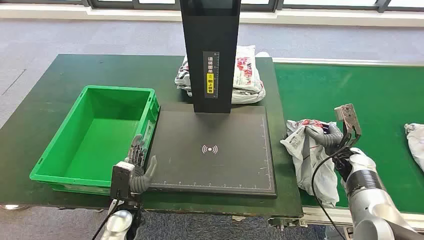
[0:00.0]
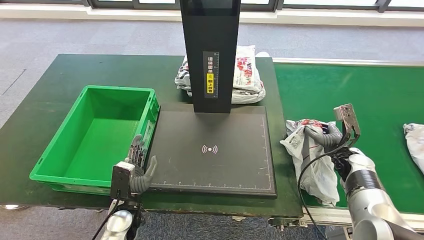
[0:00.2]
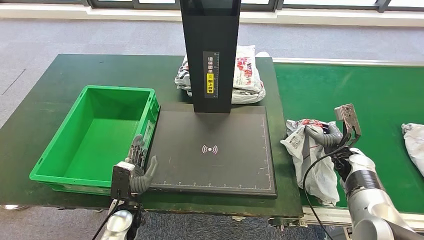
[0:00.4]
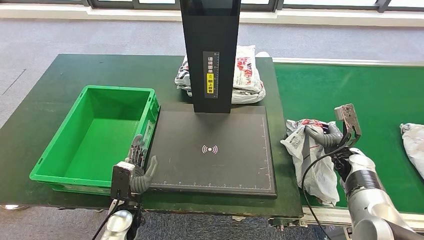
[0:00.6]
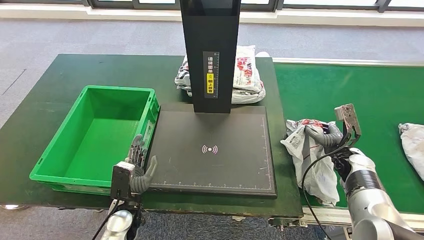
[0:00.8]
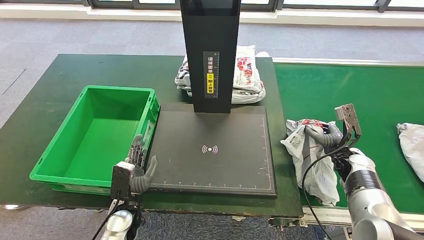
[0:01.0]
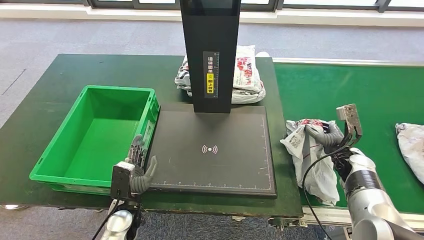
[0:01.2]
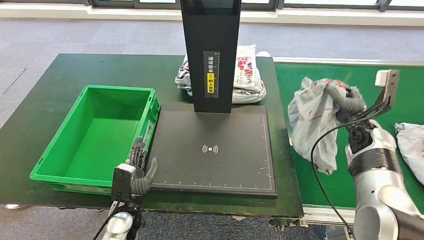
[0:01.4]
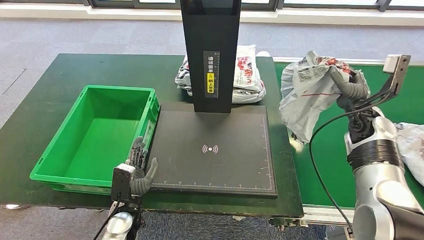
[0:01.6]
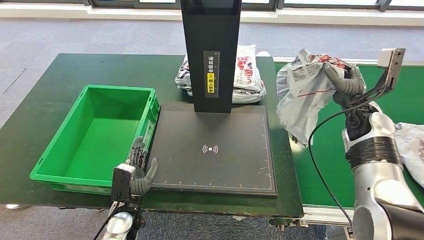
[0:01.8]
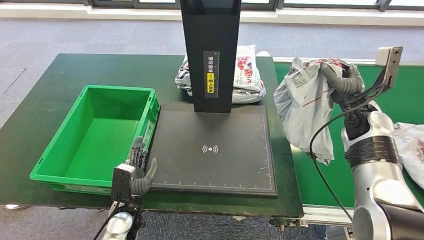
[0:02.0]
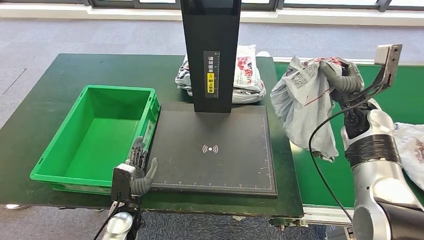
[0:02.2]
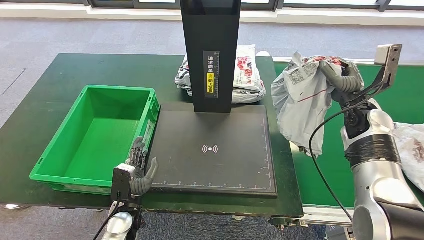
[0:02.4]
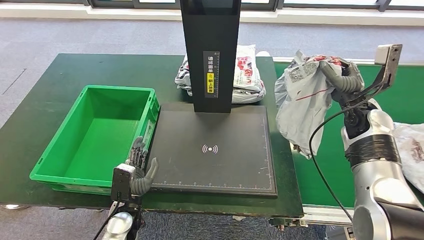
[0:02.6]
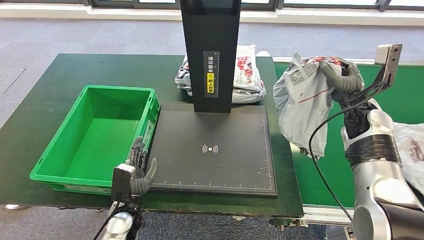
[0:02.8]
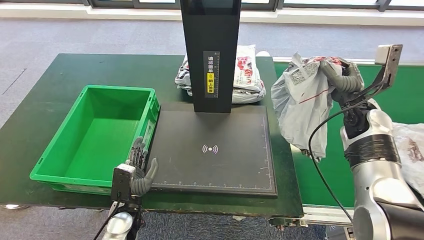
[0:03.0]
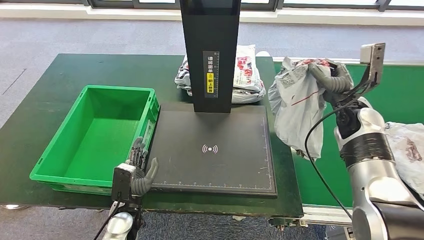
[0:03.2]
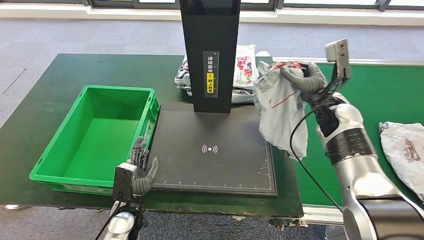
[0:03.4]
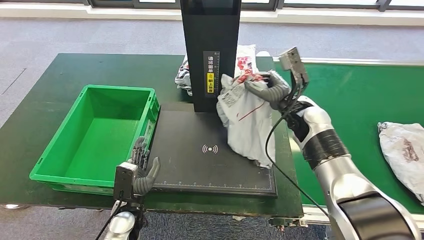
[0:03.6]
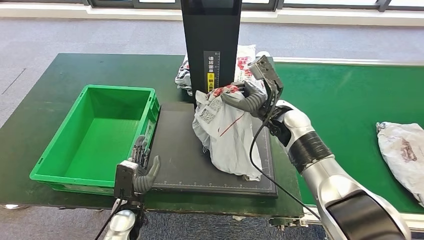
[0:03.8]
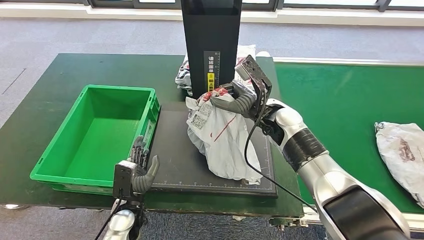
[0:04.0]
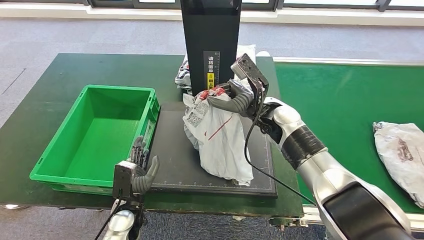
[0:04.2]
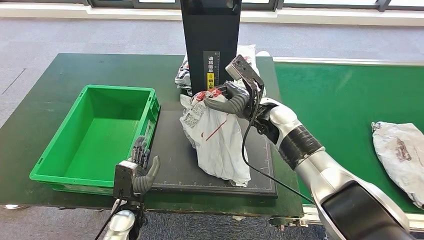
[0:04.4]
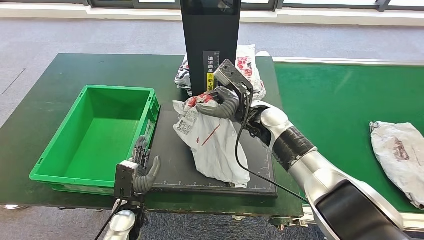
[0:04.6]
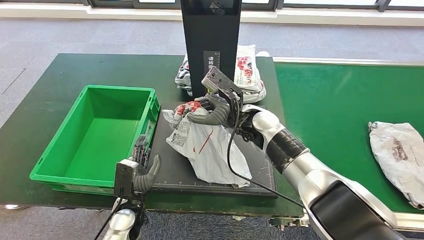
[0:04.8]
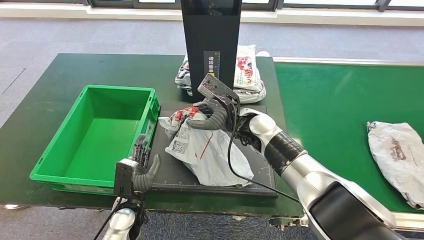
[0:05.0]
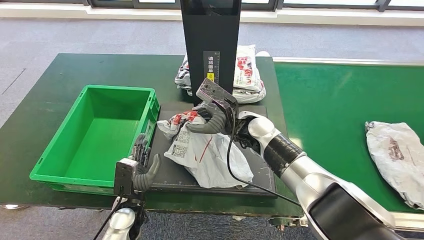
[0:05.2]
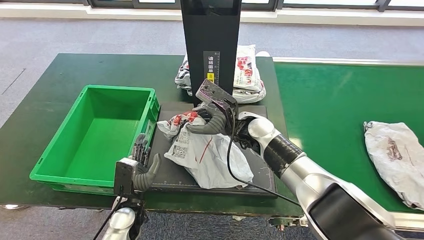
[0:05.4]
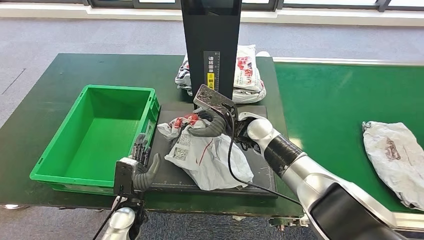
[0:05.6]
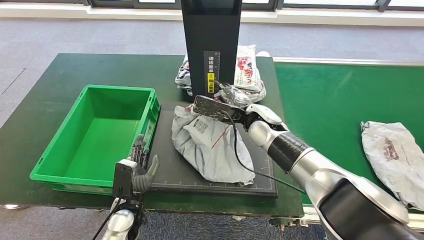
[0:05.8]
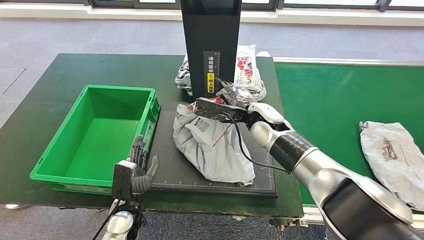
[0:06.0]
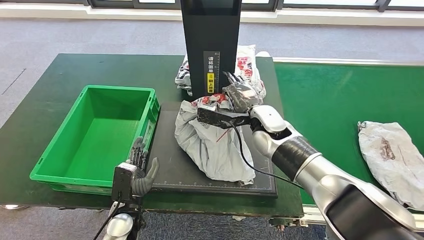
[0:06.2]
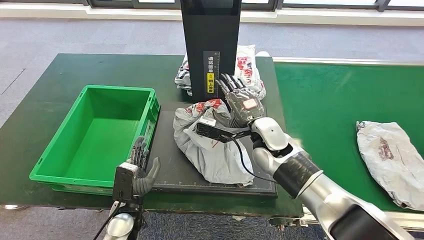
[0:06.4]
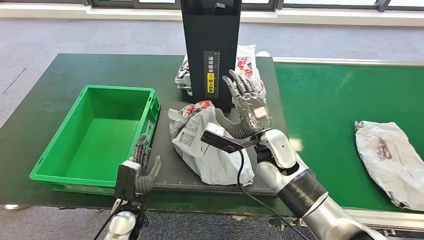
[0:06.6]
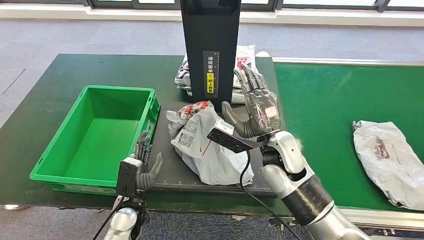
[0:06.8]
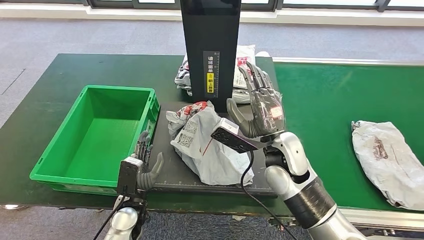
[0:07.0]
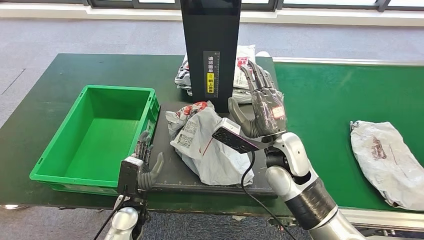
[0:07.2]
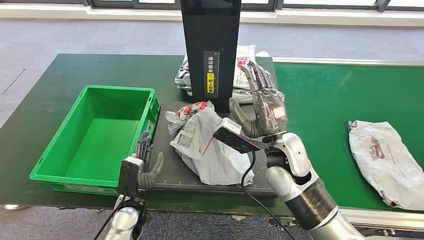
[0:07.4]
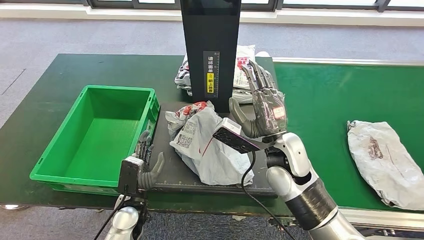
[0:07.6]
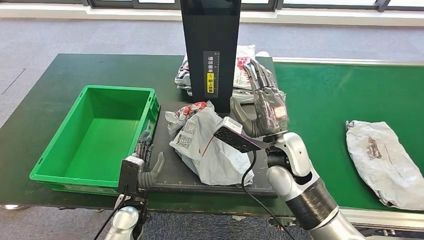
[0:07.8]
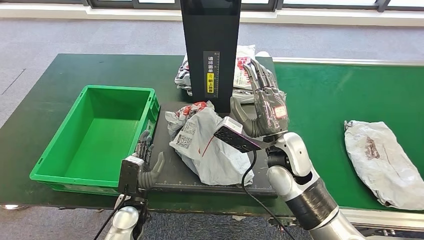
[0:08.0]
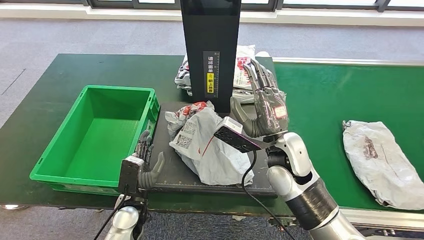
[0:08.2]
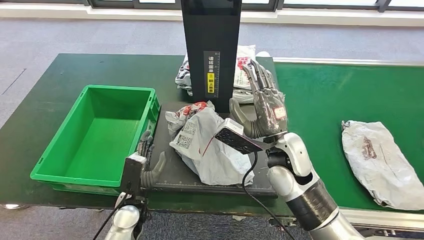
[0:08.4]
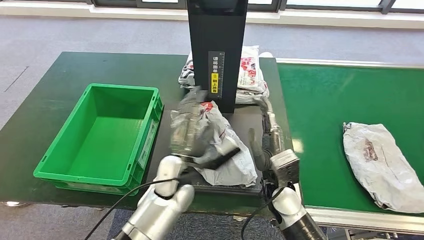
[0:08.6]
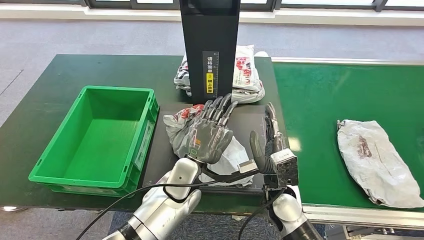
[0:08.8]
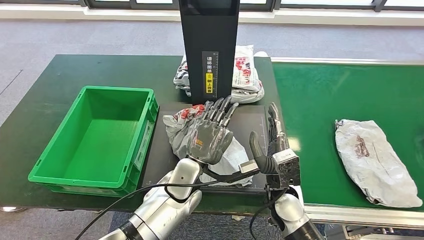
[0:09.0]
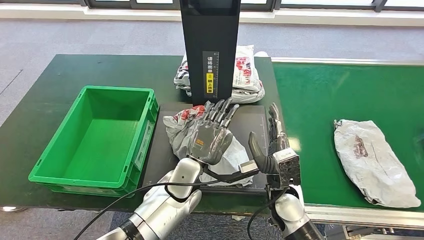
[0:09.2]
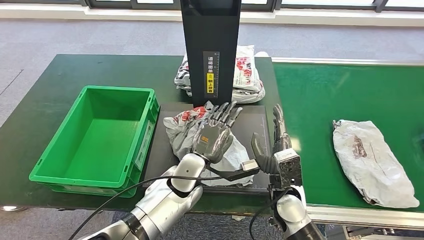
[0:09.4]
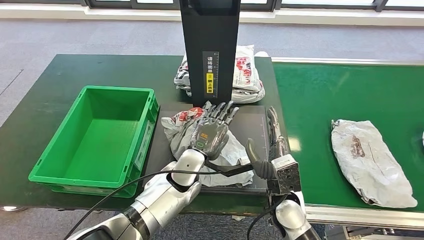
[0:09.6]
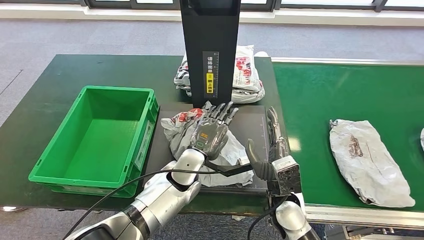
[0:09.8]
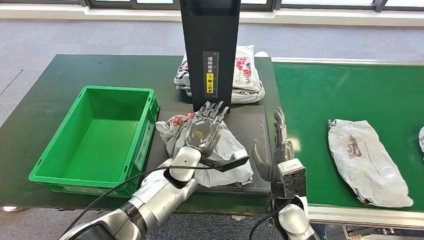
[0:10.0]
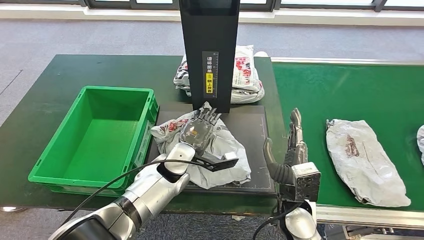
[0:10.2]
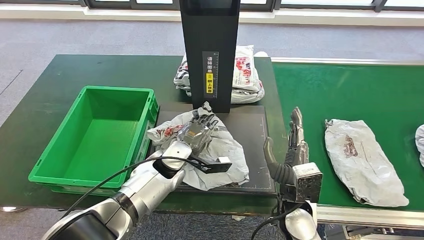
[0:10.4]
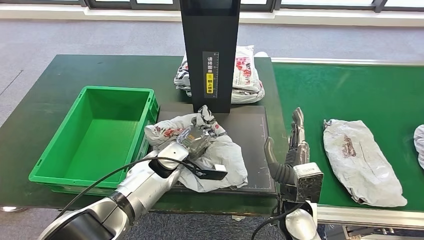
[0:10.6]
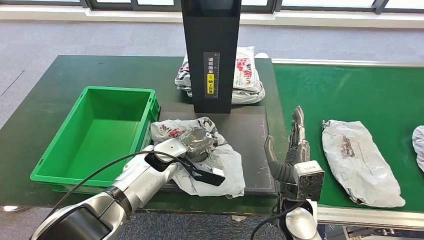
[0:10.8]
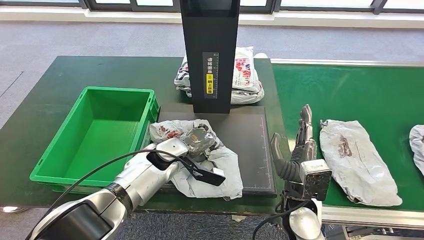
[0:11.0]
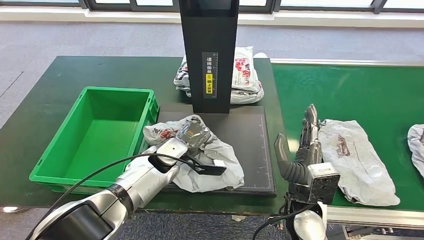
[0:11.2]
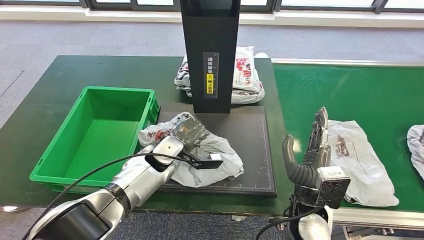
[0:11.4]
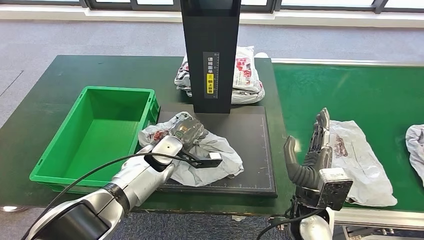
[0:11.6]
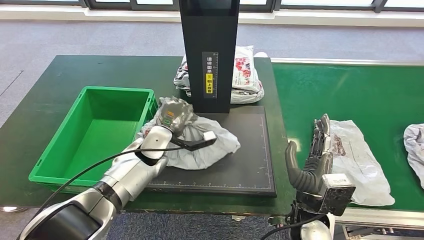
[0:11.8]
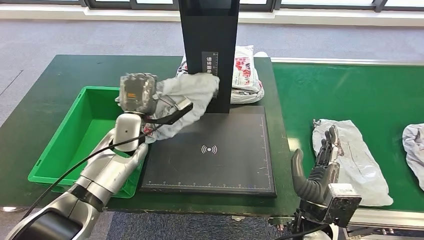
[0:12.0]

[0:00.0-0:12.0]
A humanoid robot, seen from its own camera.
Step, 0:00.0 to 0:02.0: Take the parcel off the conveyor belt.
Step, 0:02.2 to 0:07.2: Place the parcel onto the inbound machine.
0:01.6 to 0:03.0: There are only small adjustments of the hands.

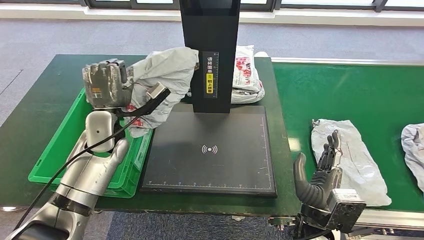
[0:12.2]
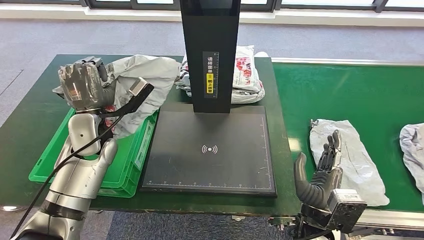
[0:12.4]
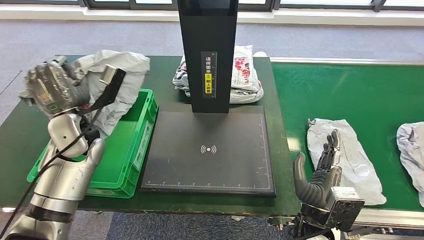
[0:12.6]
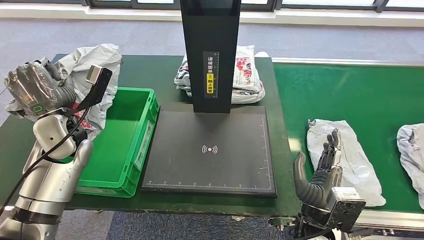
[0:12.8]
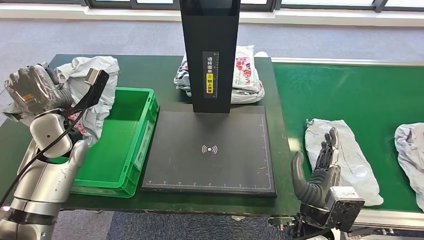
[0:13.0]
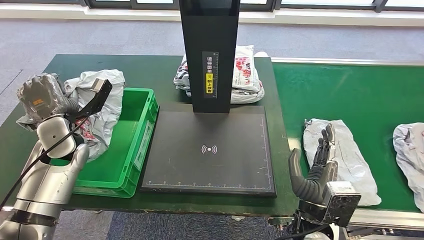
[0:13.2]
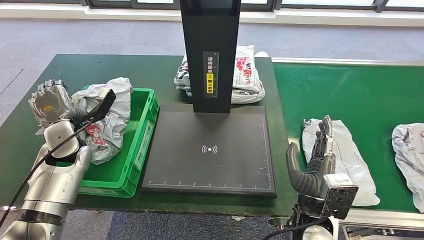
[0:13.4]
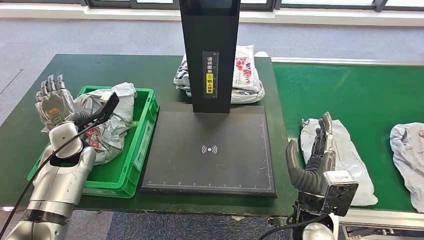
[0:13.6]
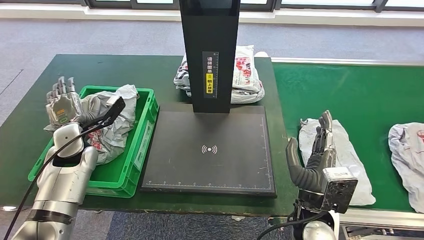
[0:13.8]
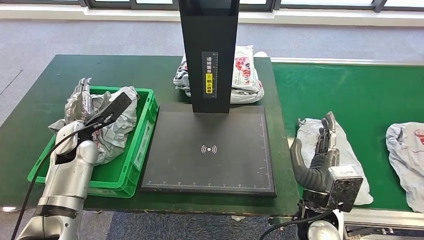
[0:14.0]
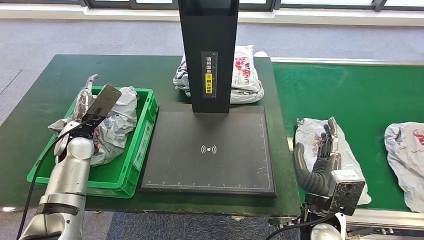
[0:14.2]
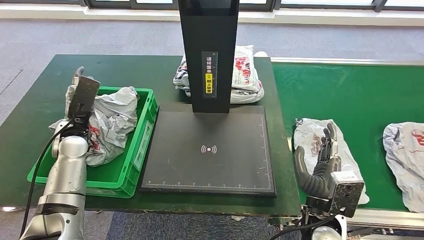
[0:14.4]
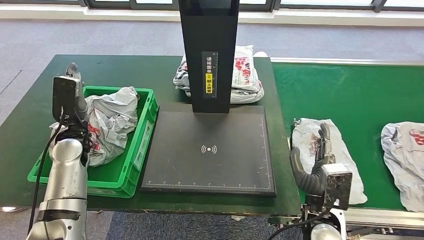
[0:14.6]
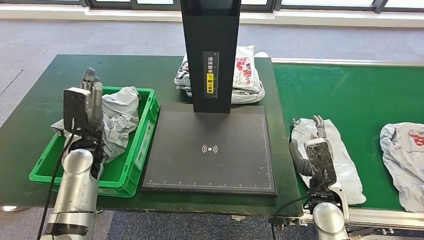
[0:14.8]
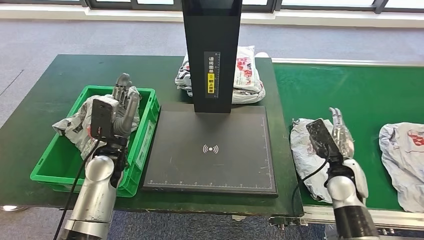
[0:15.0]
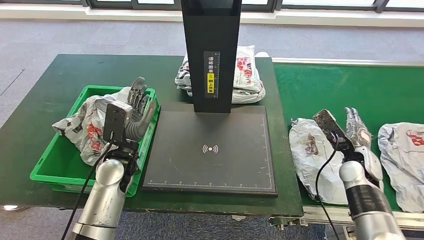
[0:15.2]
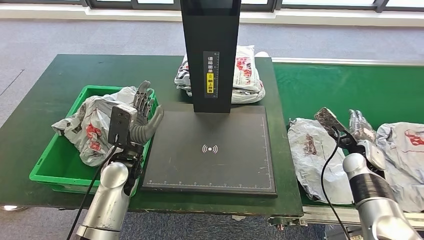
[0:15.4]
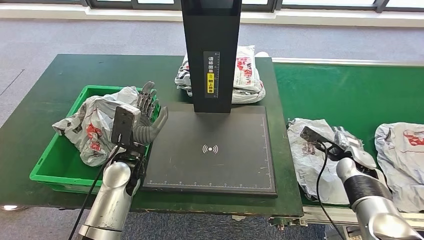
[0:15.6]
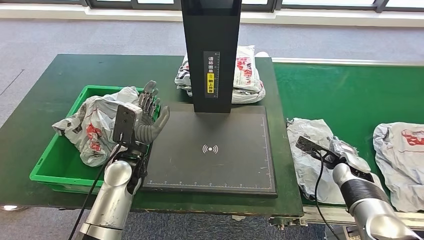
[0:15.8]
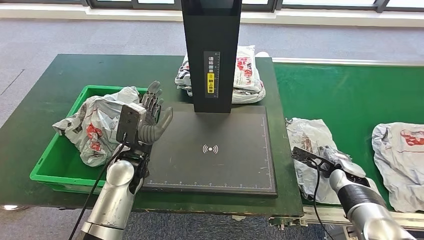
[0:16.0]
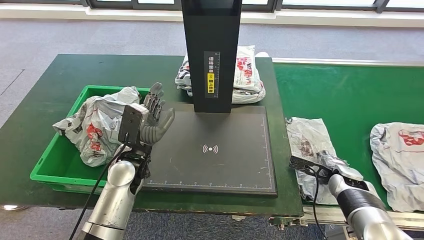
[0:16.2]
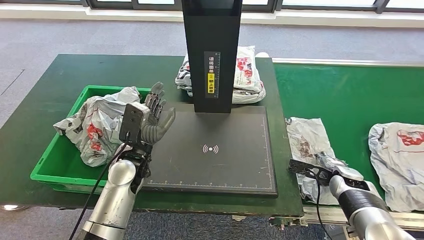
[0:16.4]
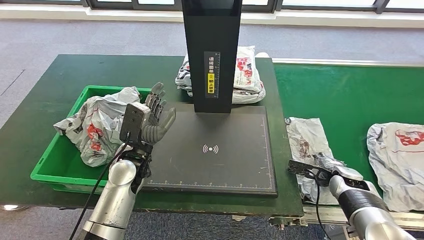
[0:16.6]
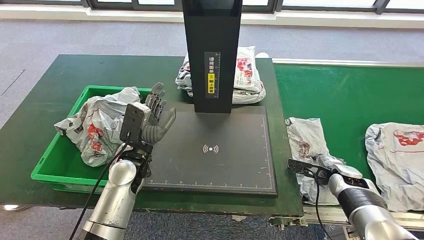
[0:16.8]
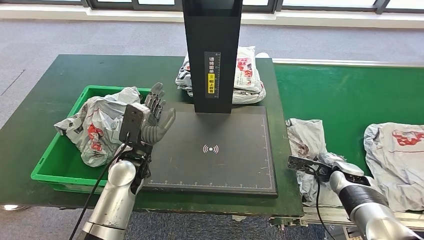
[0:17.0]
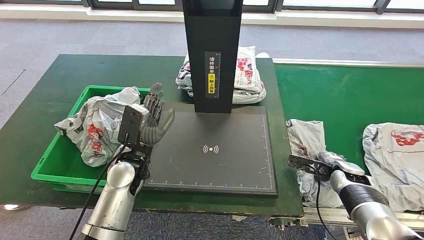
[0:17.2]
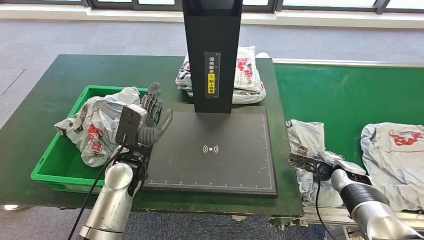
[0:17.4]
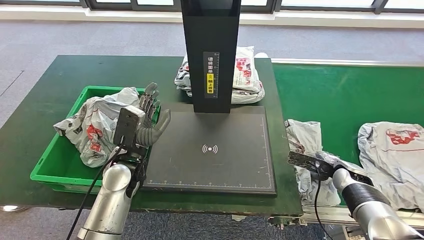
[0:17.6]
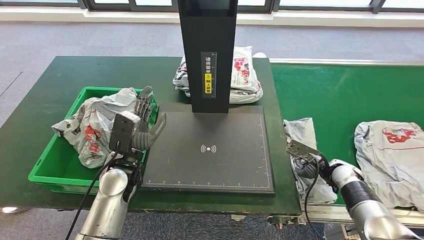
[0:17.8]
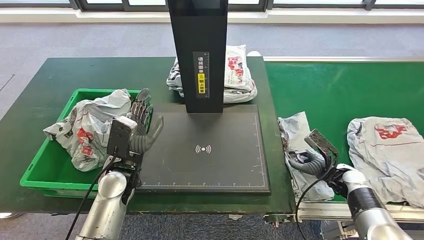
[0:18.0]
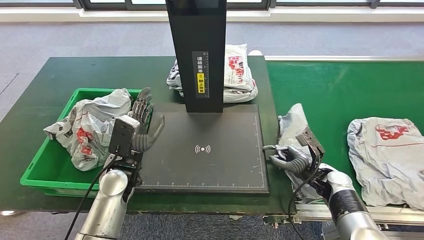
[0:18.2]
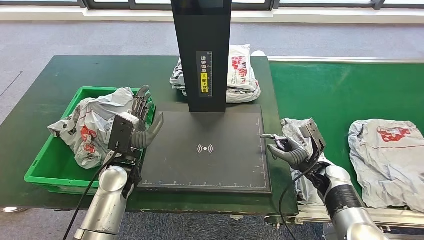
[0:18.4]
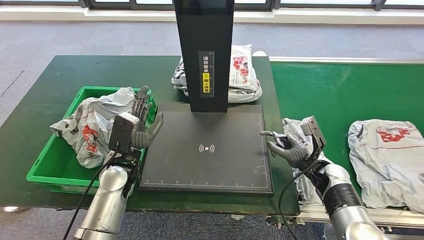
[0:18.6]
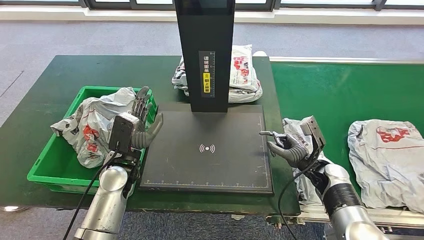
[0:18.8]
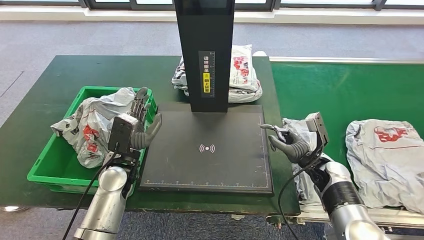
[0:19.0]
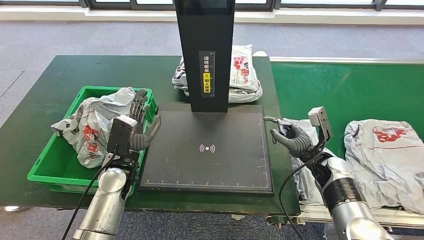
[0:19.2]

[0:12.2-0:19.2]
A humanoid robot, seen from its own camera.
Step, 0:12.4 to 0:14.6: Put the parcel inside the courier box.
0:15.0 to 0:16.4: The right hand travels downward by roughly 10 cm. The left hand travels to the right by about 5 cm.
